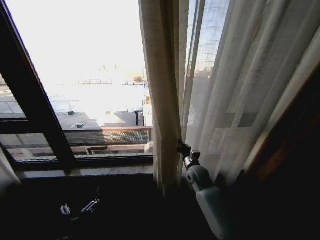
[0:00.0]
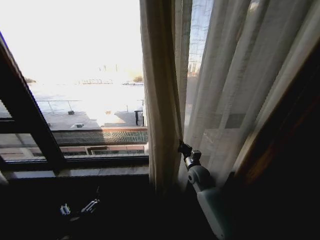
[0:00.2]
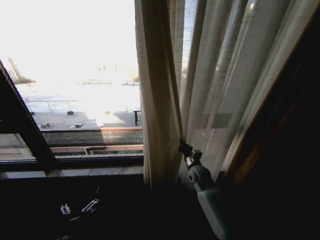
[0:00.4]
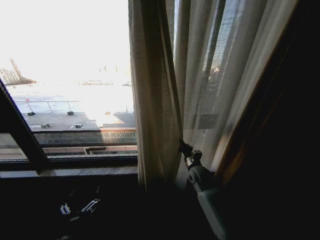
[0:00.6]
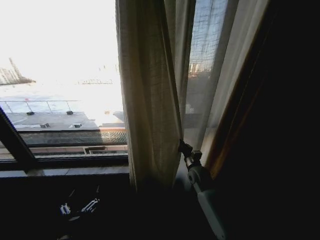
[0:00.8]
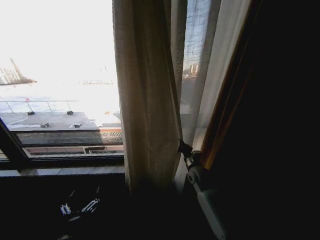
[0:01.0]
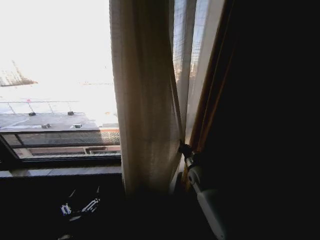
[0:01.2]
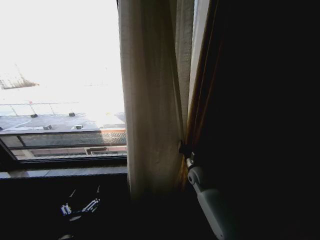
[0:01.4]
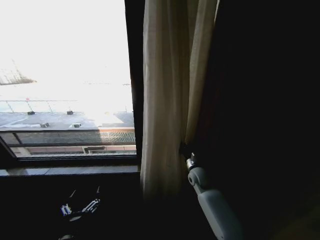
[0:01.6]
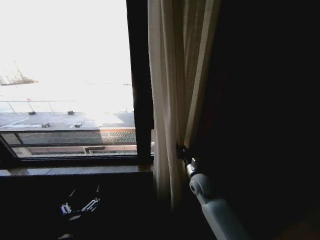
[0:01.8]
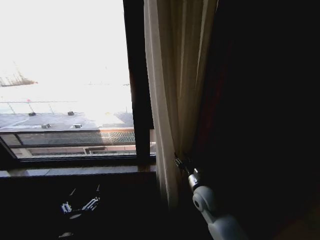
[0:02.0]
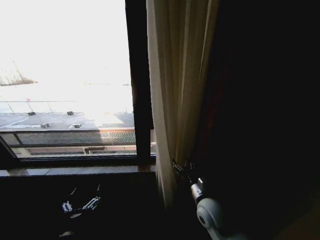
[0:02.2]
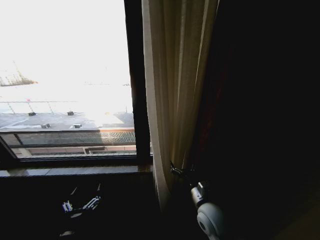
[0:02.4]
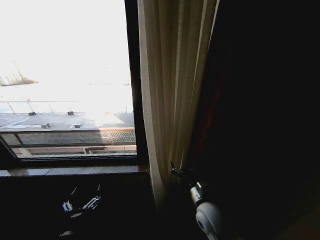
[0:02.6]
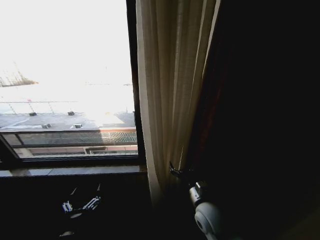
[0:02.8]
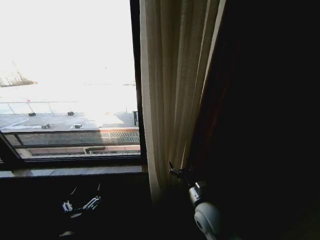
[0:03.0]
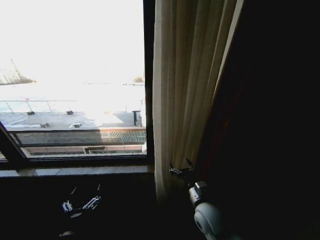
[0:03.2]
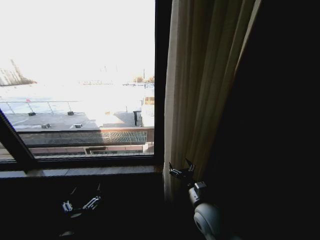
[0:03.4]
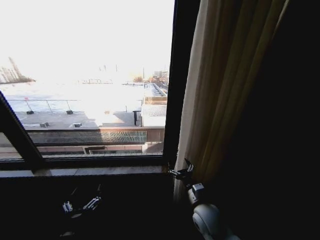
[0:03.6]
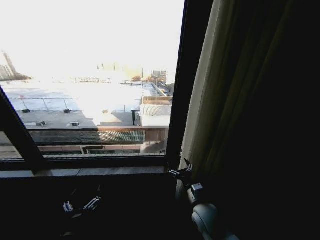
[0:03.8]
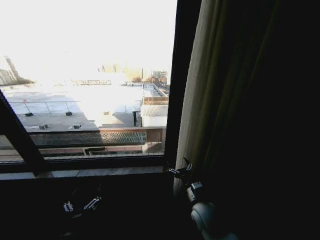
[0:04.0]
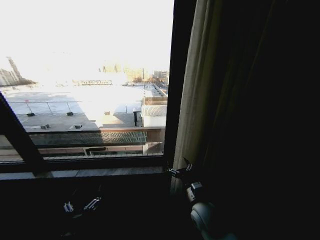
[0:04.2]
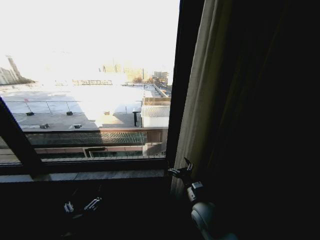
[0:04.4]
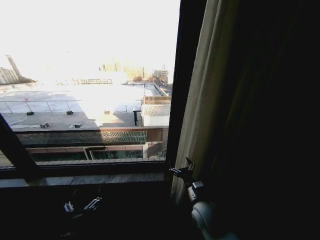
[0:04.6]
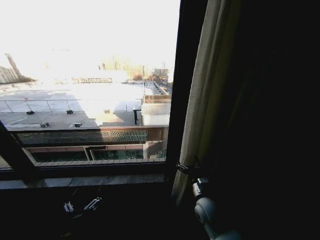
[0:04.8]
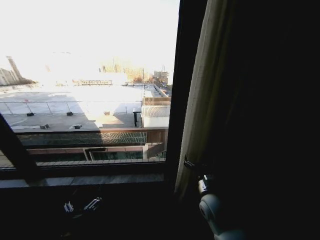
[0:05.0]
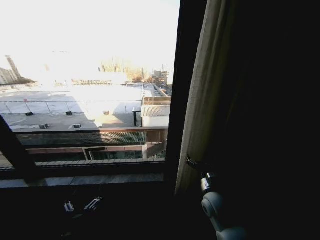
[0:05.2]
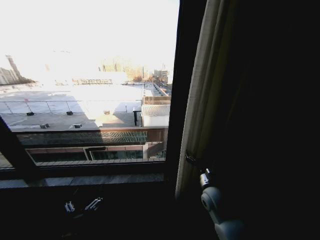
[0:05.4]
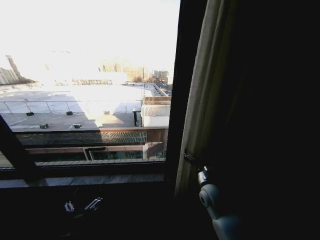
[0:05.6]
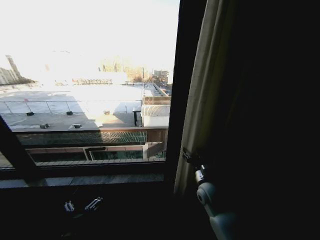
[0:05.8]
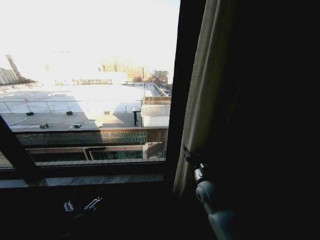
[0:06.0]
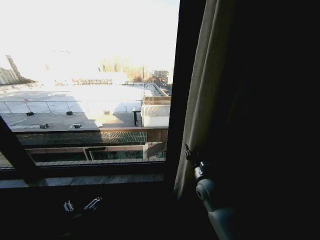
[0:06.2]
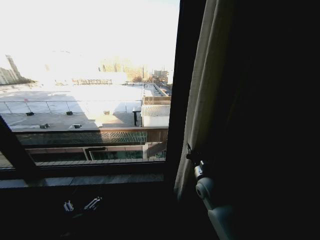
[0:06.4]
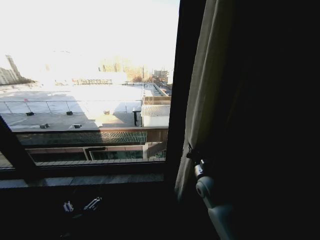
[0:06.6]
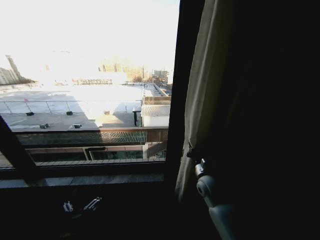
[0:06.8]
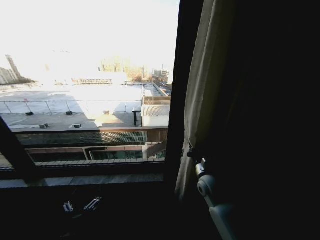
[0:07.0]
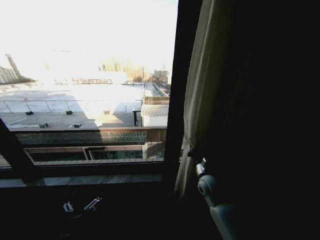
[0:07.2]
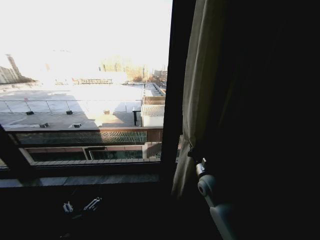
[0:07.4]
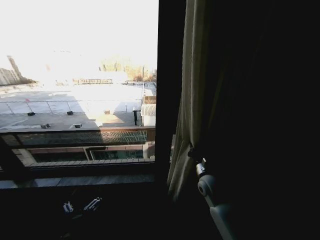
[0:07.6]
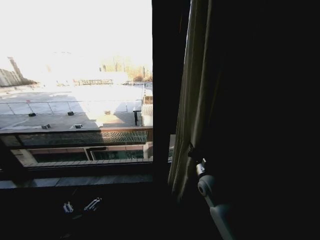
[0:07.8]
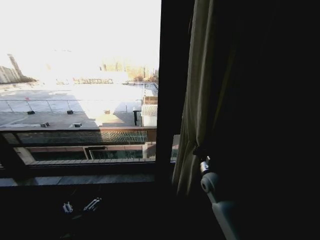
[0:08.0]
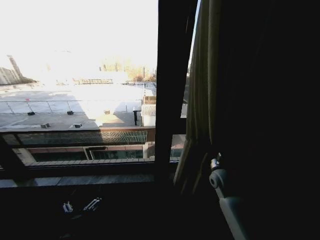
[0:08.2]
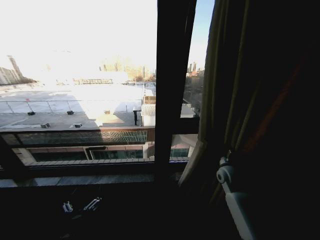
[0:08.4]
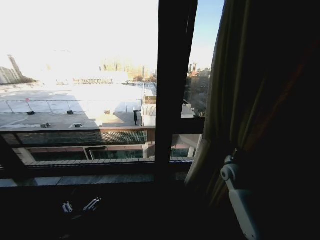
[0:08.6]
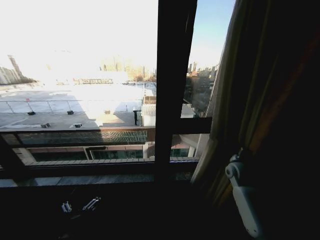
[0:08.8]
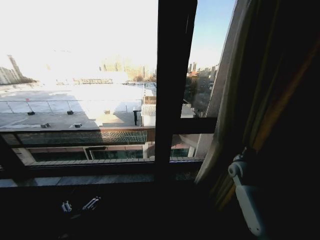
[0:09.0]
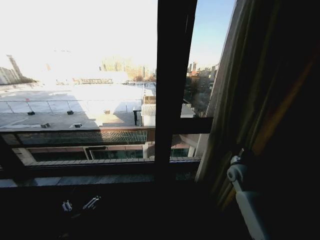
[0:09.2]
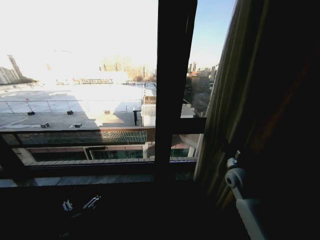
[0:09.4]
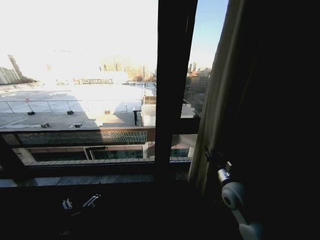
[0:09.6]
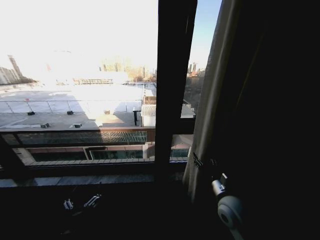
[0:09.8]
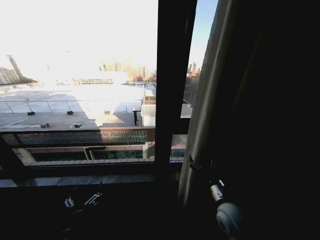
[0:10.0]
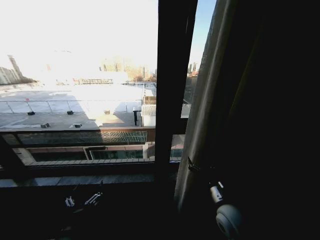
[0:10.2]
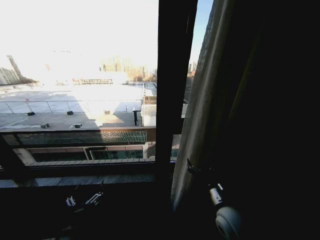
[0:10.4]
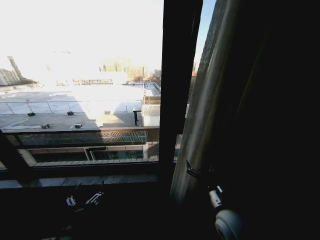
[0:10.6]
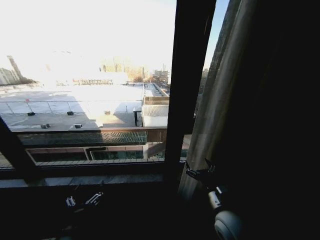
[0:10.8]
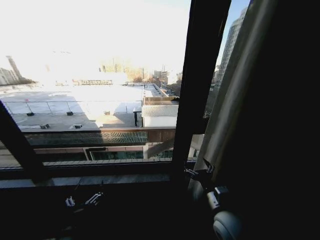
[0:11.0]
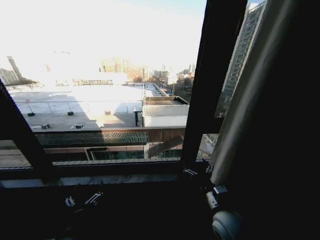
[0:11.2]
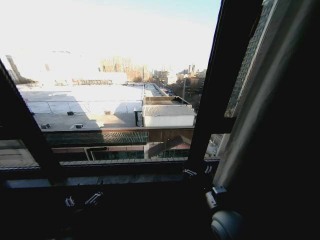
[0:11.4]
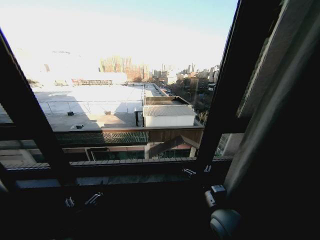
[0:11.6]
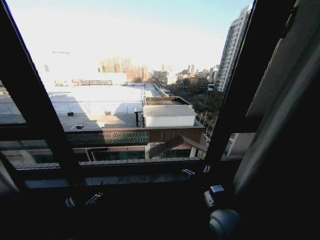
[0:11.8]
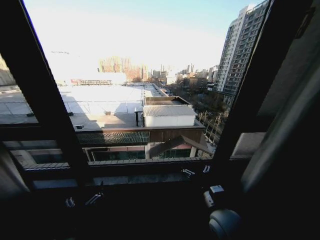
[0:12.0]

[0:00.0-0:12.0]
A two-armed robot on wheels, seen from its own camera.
Task of the whole recording: Open the curtains by pulling them apart, changing their state from closed to fully open.
0:01.6 to 0:03.0: The right gripper heads backward, covering roughly 15 cm, and opens up.
0:04.4 to 0:06.0: The right gripper is displaced forward by approximately 5 cm.
0:06.0 to 0:07.6: The right gripper closes up.
0:07.6 to 0:09.0: The right gripper goes roughly 15 cm to the right.
0:09.0 to 0:10.4: The right gripper heads backward and to the left, covering roughly 25 cm, and opens.

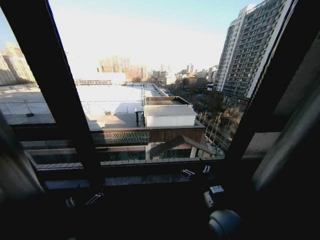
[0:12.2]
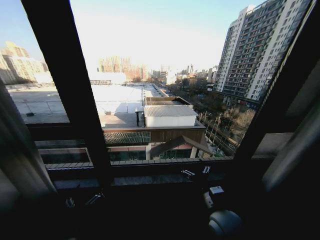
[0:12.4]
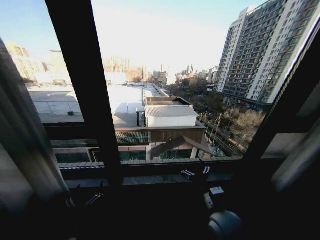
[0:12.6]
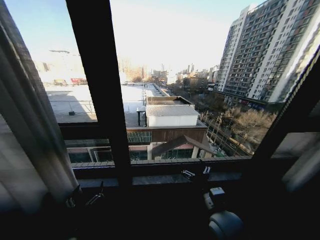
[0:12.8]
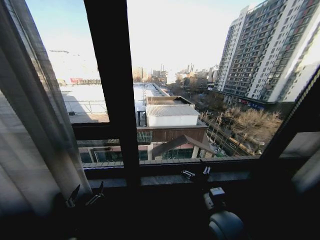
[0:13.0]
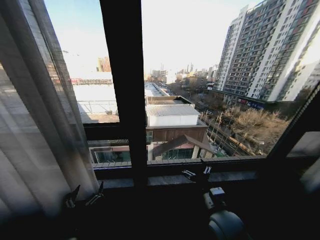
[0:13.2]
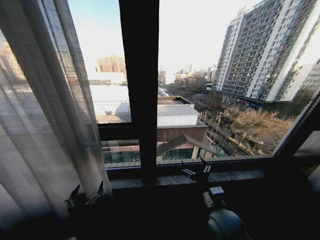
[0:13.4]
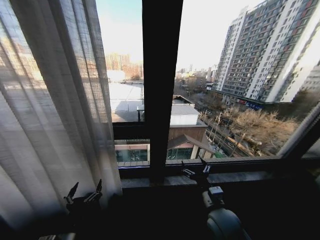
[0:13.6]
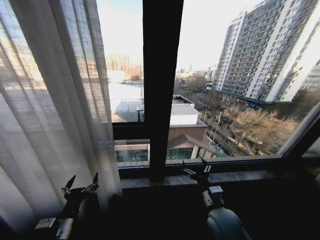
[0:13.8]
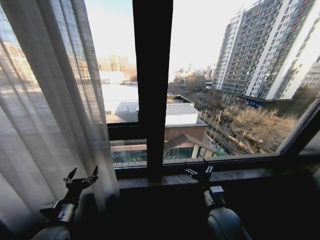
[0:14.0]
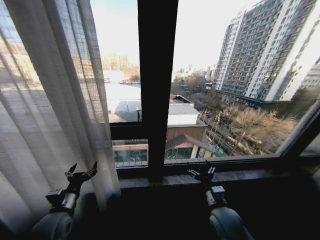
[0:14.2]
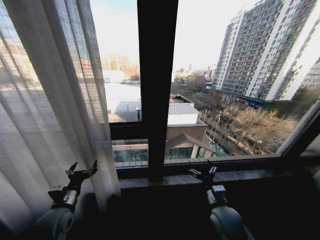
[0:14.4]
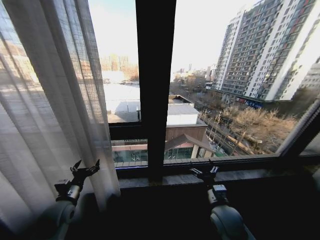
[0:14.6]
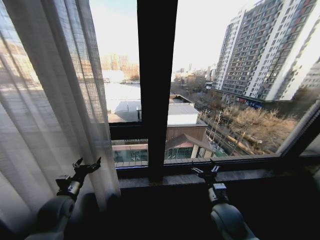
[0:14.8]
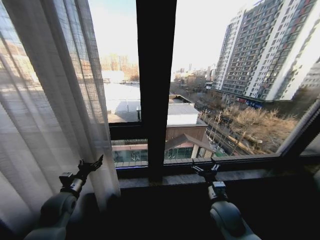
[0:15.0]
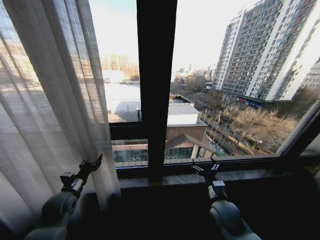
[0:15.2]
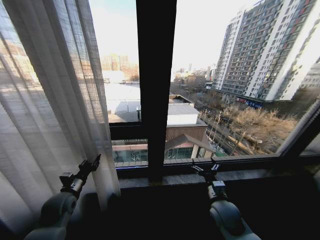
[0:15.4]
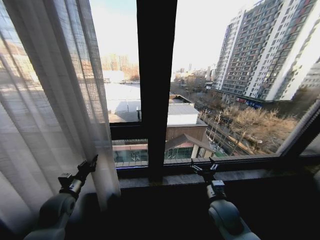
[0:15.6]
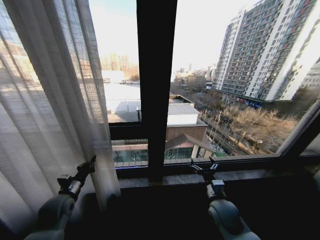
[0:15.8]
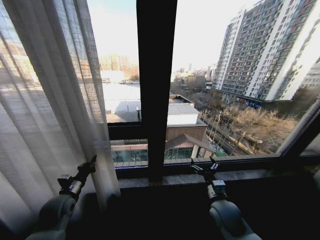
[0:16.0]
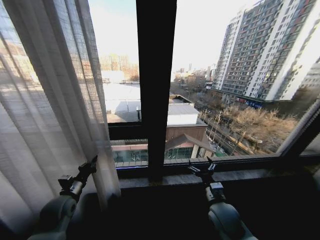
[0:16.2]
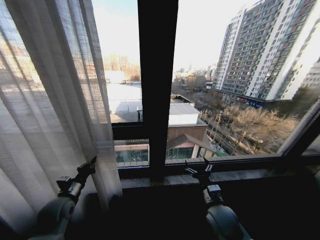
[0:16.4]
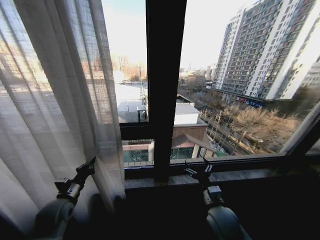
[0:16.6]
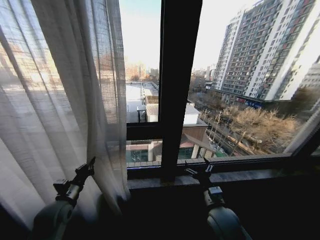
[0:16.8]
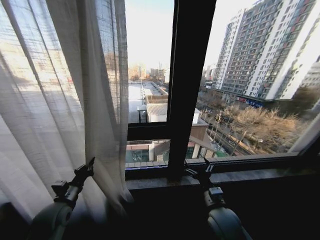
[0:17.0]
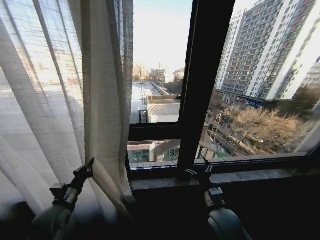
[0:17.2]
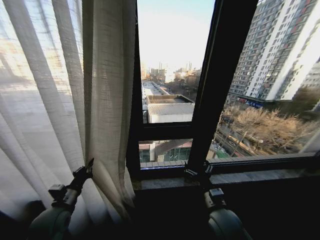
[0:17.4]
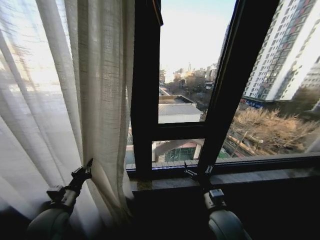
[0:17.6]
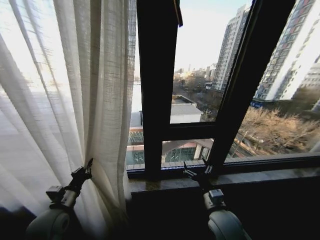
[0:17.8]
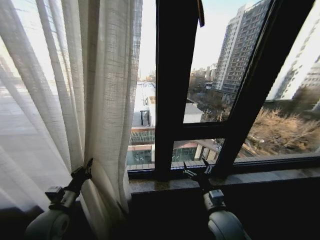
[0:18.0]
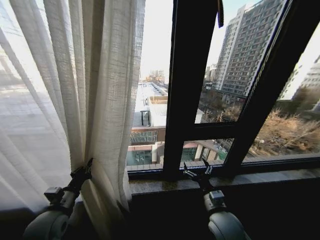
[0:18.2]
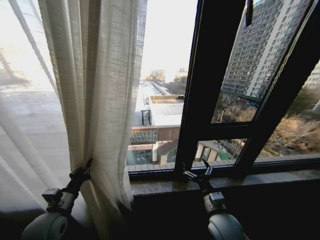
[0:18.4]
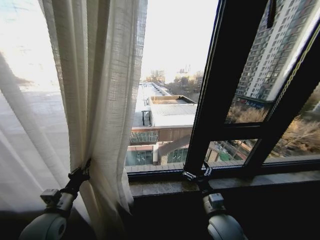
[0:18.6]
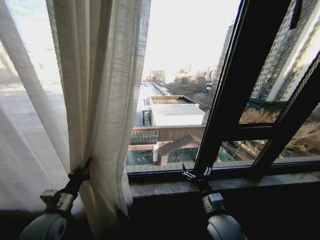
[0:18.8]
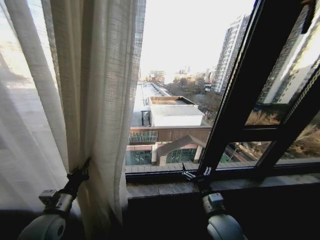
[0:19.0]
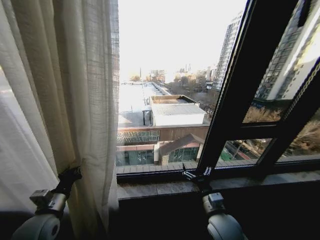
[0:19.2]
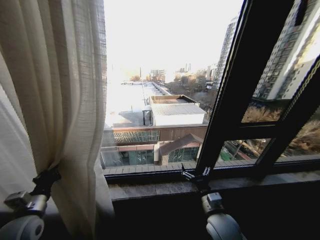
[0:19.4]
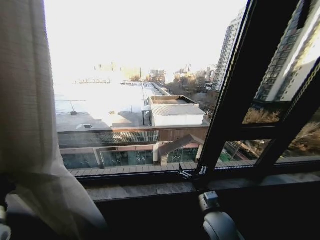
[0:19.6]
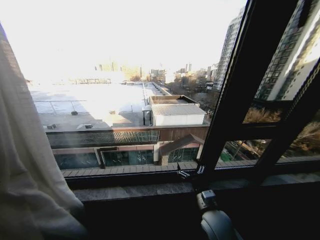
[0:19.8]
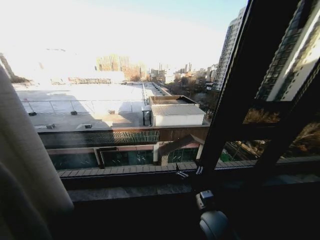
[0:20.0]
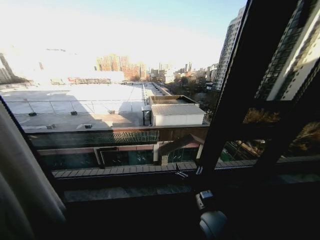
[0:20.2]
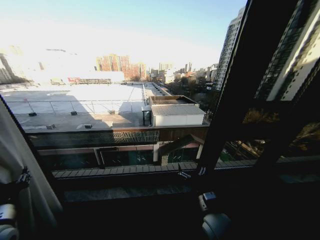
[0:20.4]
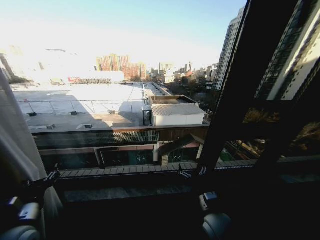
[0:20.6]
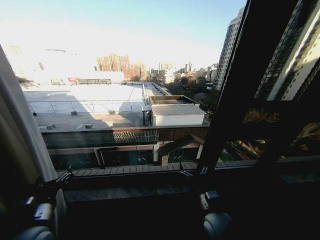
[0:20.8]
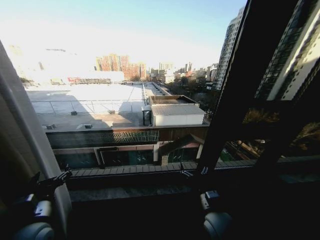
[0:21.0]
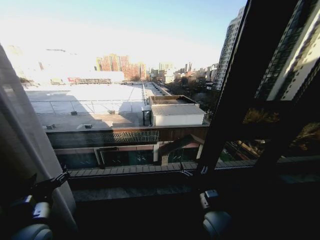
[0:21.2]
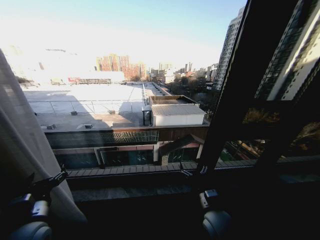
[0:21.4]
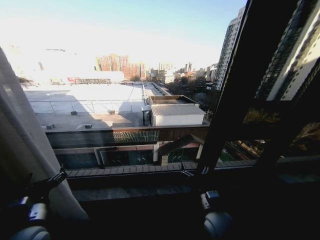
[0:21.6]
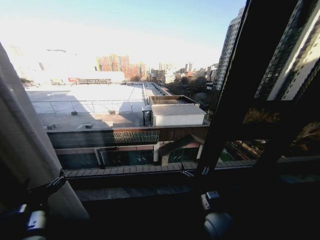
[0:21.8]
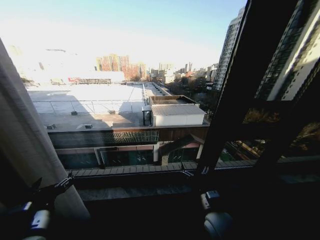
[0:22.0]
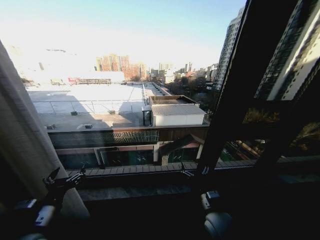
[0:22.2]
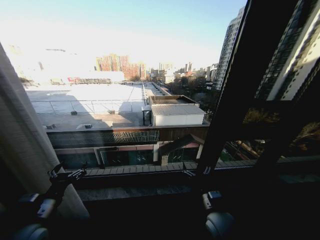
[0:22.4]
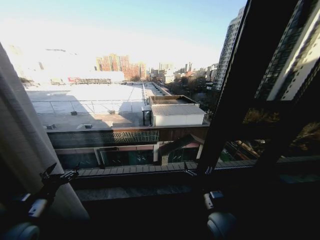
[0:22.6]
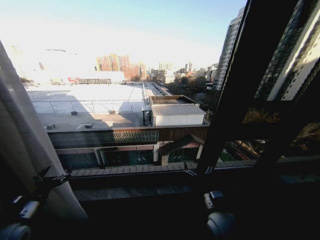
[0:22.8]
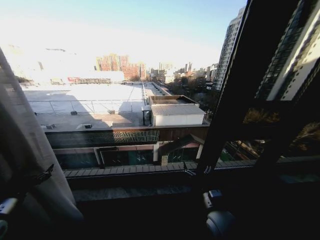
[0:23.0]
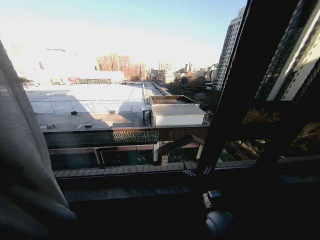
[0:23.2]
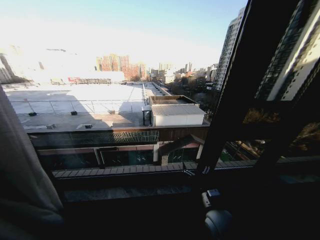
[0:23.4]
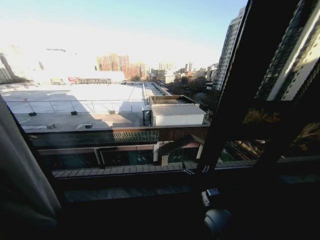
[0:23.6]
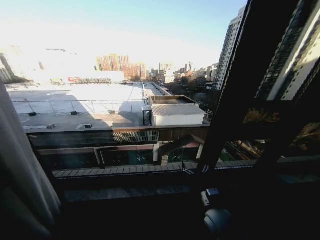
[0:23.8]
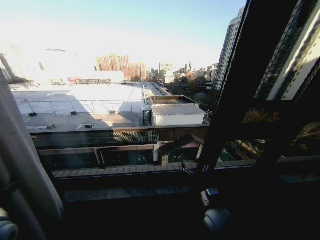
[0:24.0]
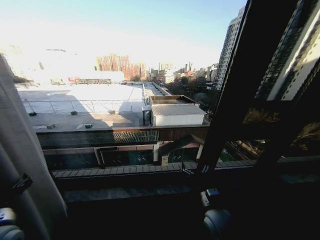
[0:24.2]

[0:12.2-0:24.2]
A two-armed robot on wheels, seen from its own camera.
Task of the whole recording: Open the curtains by pulling them apart, changing their state from closed to fully open.
0:12.2 to 0:13.8: The left gripper moves about 5 cm.
0:13.8 to 0:15.2: The left gripper moves forward and to the left, approximately 15 cm, and closes its fingers; the right gripper shifts by some 5 cm.
0:15.2 to 0:16.6: The left gripper closes.
0:16.6 to 0:18.2: The left gripper changes place by roughly 5 cm.
0:18.2 to 0:19.8: The left gripper is displaced to the left by roughly 20 cm.
0:19.8 to 0:21.2: The left gripper is displaced to the right by some 20 cm, and opens.
0:21.2 to 0:22.6: The left gripper moves to the left, about 5 cm.
0:22.6 to 0:24.2: The left gripper reaches approximately 20 cm to the left, then returns.
